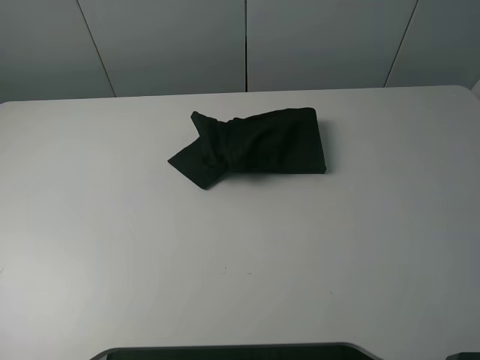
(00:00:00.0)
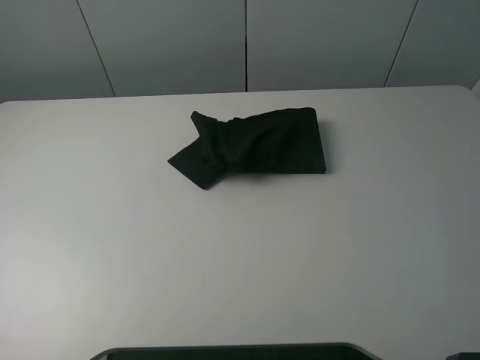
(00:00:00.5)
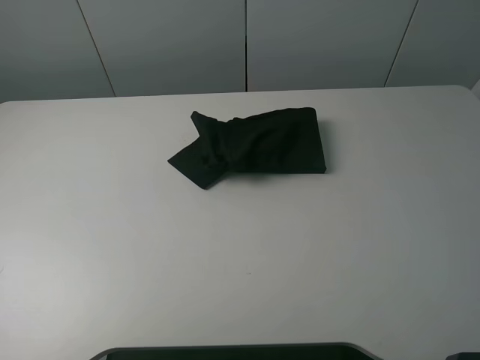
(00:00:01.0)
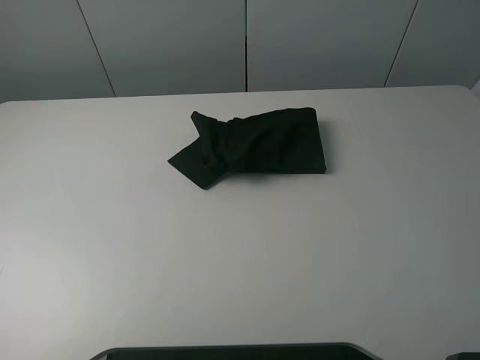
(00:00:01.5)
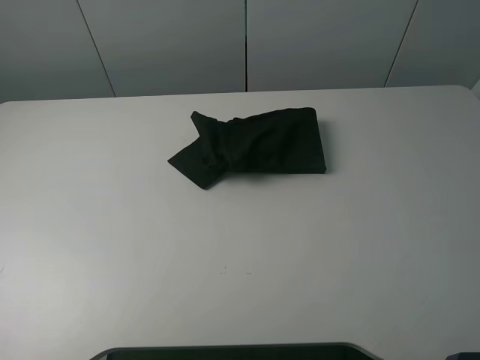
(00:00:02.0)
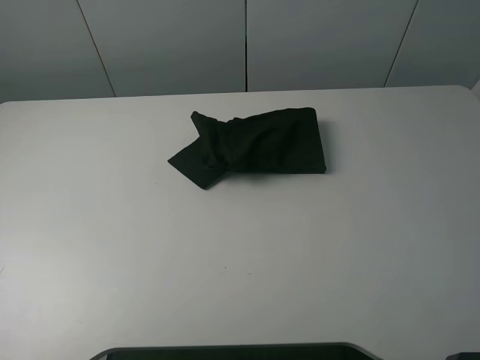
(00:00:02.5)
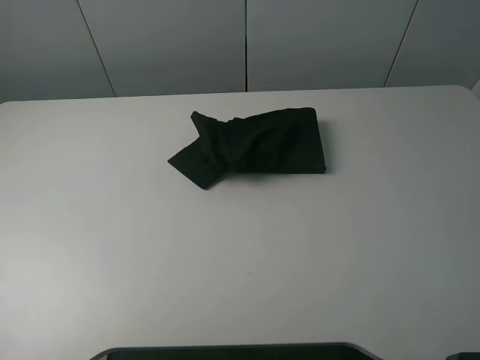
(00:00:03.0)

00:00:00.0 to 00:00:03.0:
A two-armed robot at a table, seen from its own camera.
Task of the whole recording: fold the clothes on the table.
00:00:01.5 to 00:00:03.0: Neither gripper changes place.
